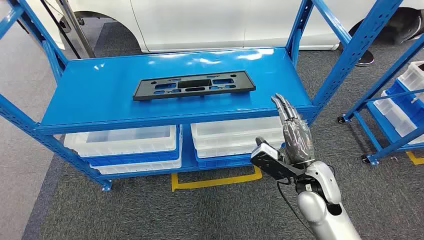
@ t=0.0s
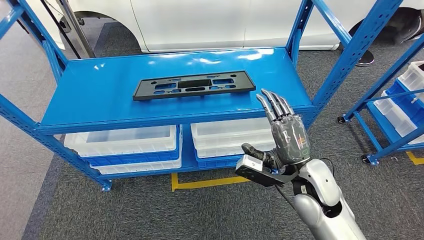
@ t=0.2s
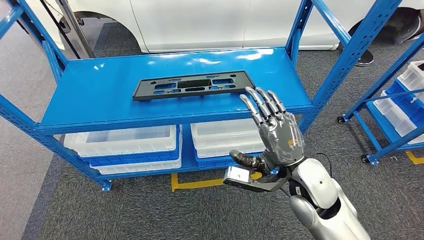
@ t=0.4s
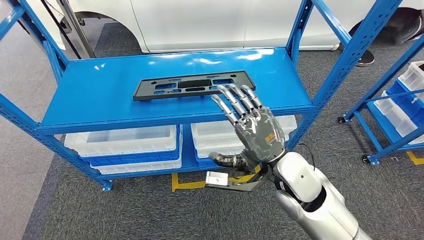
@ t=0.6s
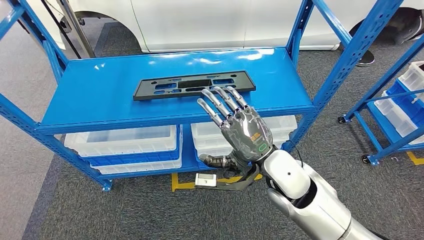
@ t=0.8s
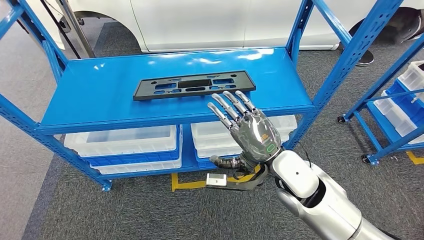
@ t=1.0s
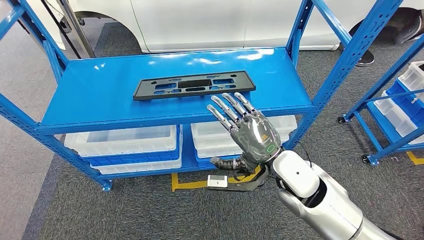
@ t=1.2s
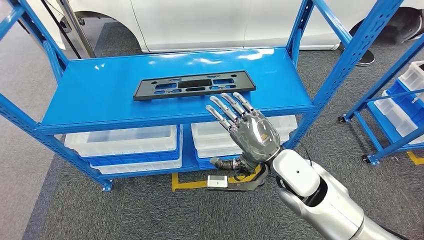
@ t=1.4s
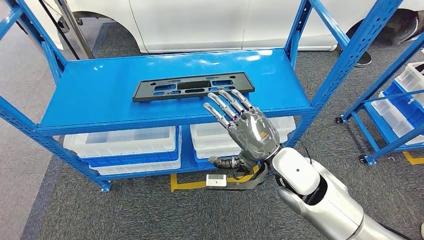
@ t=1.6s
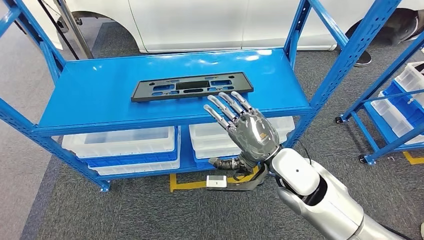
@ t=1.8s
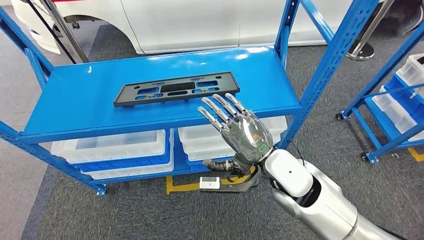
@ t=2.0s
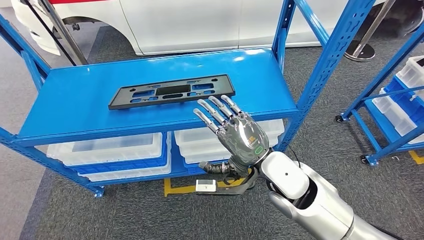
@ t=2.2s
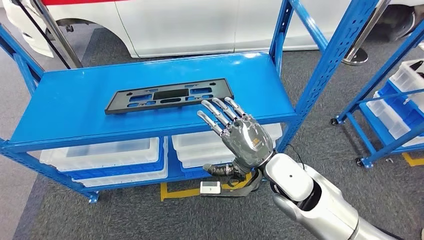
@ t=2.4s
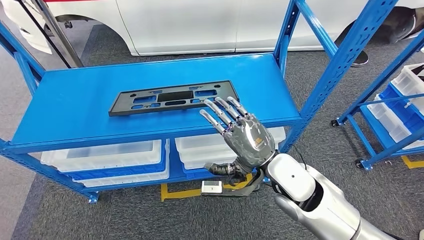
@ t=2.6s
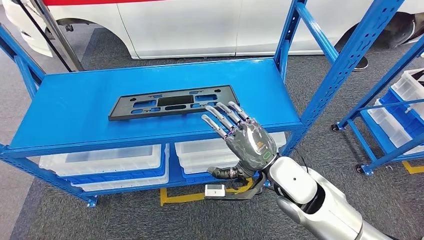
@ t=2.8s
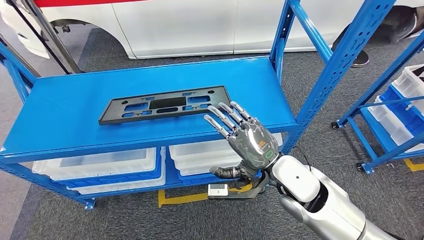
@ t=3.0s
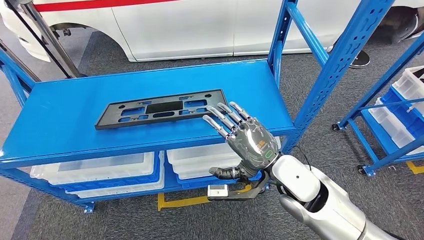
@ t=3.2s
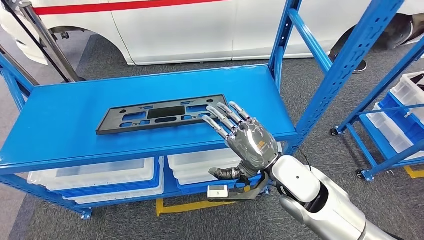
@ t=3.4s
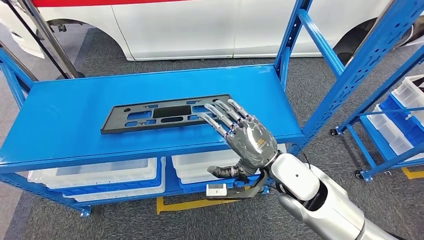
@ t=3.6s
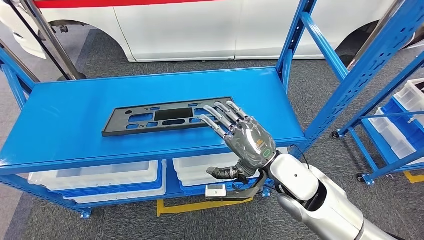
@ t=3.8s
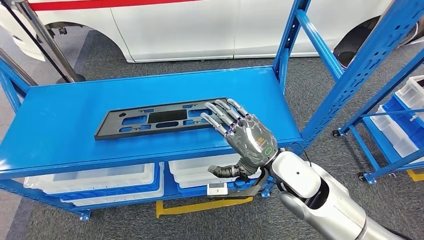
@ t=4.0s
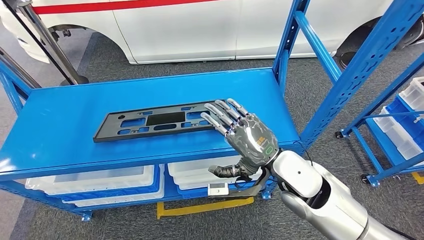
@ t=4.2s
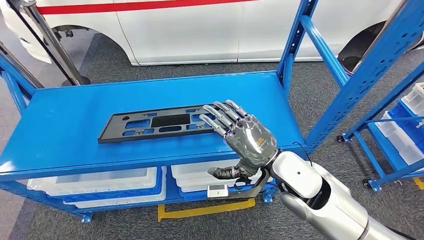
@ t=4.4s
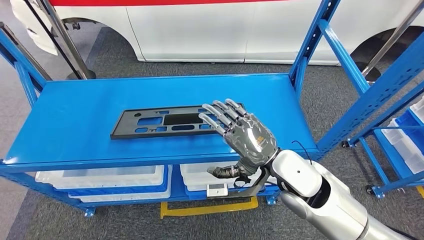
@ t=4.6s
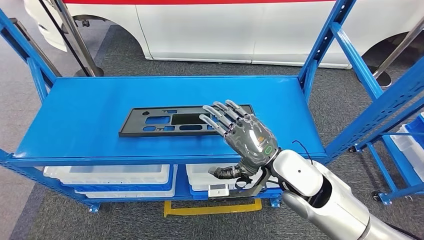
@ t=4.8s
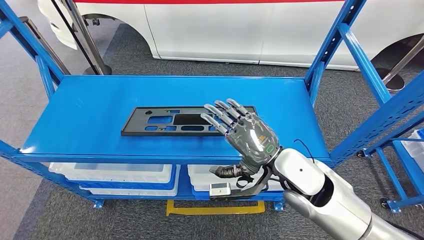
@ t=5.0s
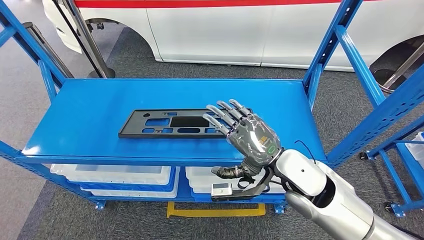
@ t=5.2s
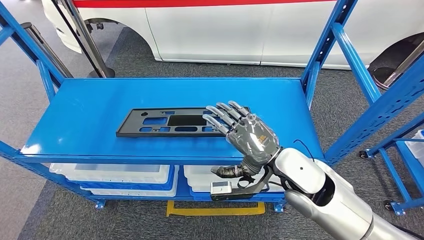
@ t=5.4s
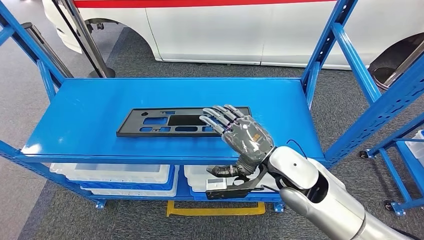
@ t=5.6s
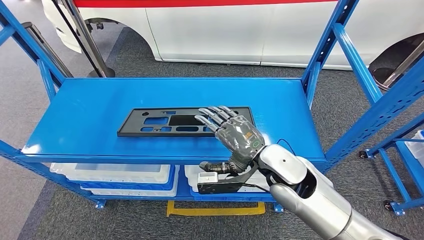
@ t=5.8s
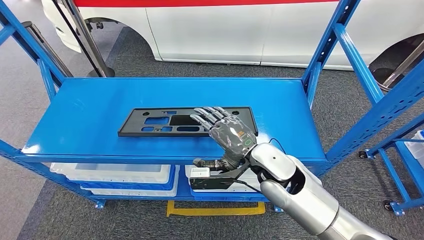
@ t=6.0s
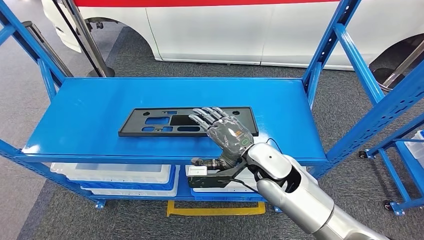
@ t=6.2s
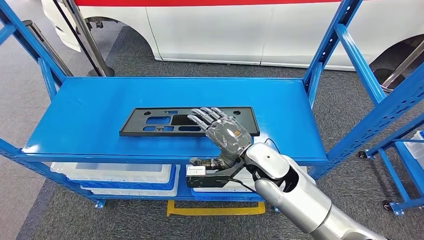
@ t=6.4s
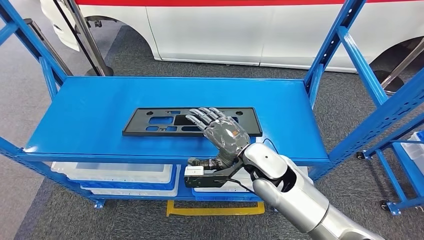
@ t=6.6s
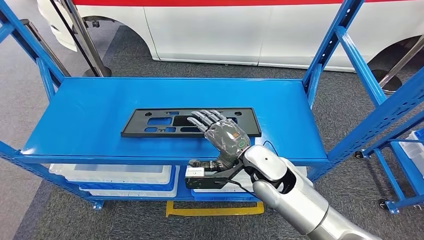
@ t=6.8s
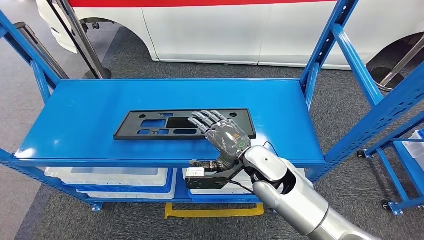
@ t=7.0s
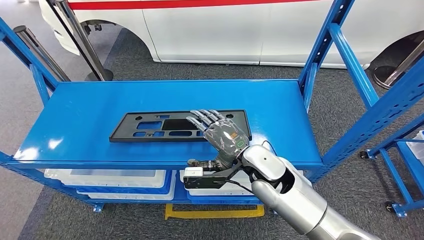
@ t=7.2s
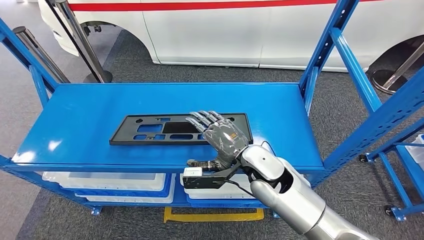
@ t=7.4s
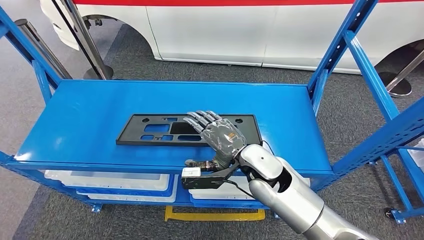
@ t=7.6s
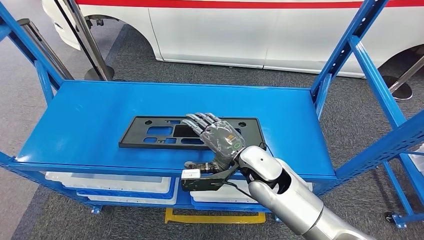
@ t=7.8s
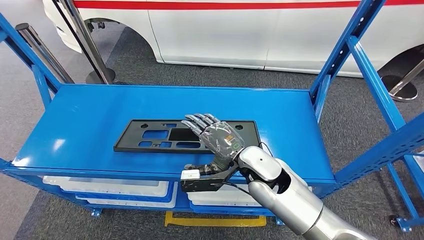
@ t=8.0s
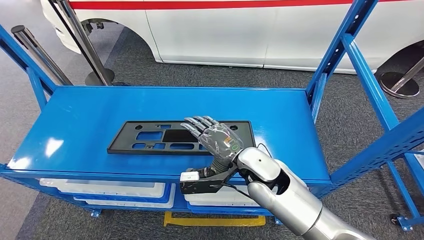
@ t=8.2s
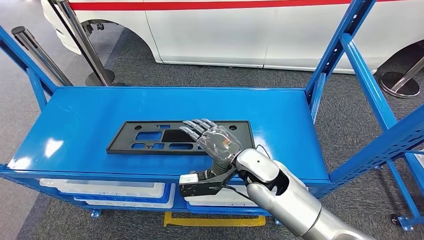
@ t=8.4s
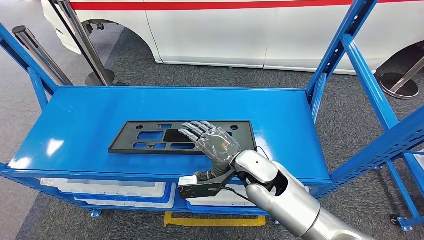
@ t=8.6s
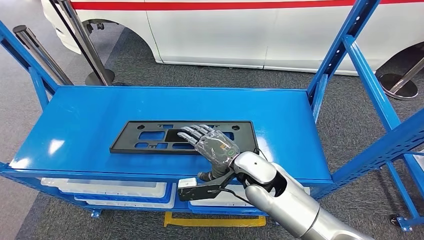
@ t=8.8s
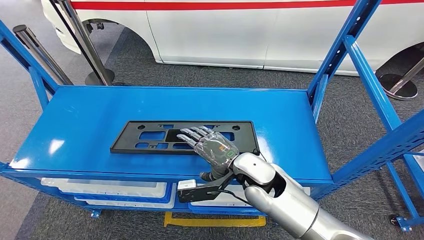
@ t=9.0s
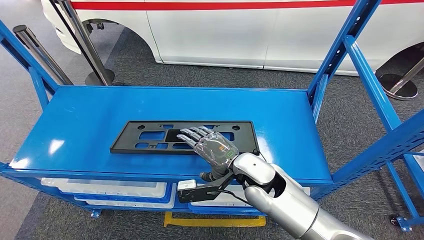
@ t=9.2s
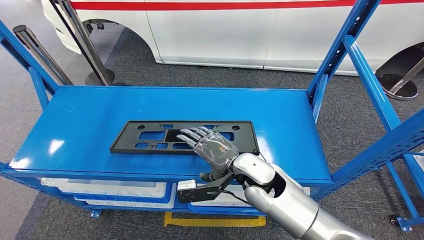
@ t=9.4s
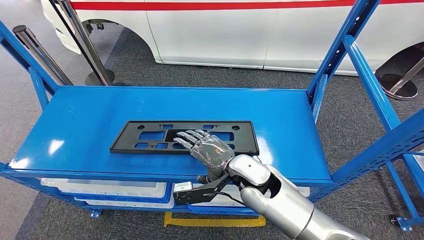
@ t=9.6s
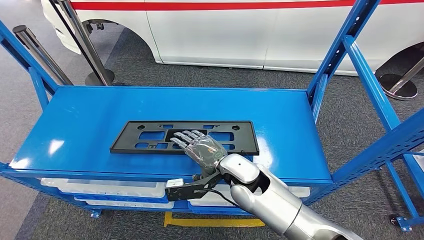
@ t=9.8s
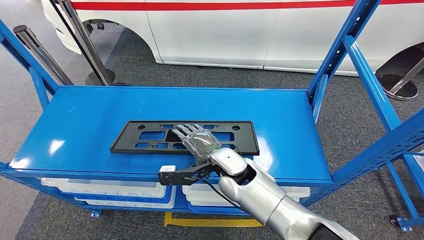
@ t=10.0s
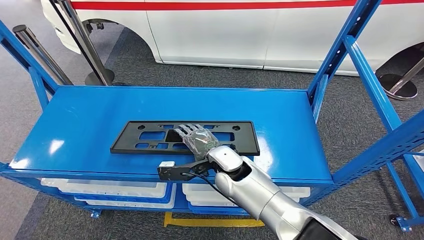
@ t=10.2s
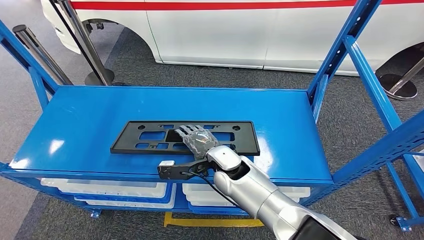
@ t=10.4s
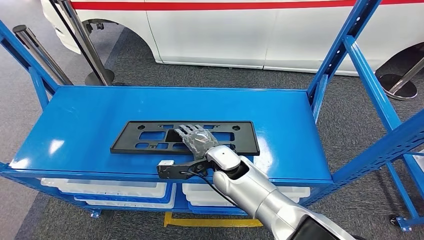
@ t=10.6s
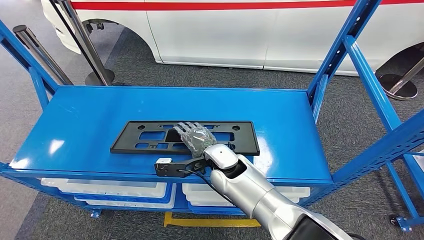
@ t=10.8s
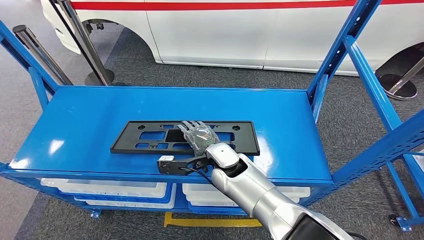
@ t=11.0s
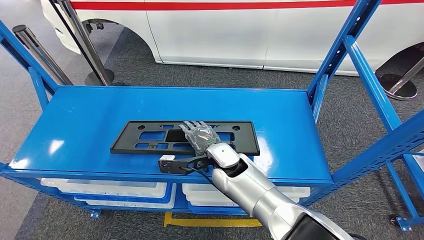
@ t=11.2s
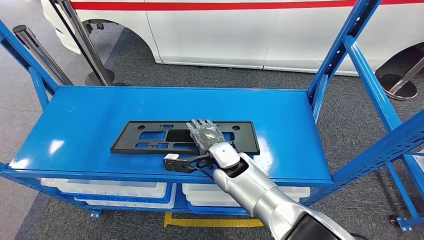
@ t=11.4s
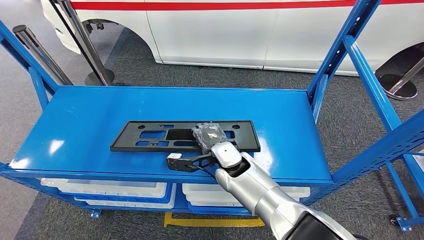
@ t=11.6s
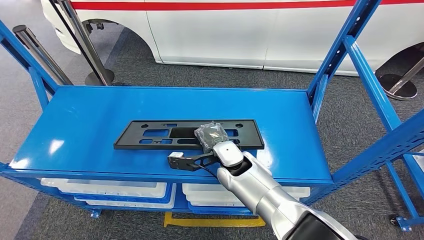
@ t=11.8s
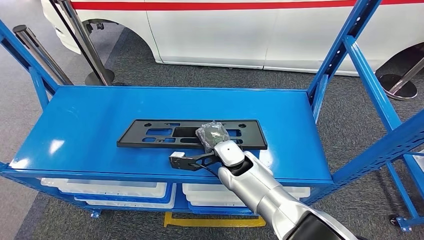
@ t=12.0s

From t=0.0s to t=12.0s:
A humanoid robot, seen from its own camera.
From t=9.0s to t=10.4s: The right hand is displaced to the left by approximately 5 cm.
From t=10.4s to t=12.0s: The hands move only a little.

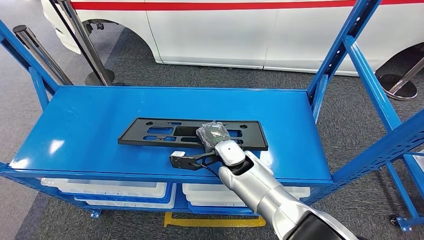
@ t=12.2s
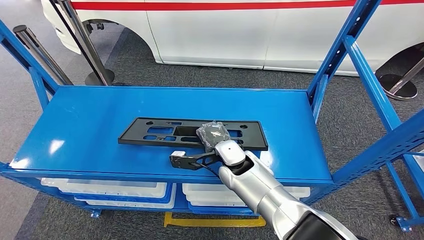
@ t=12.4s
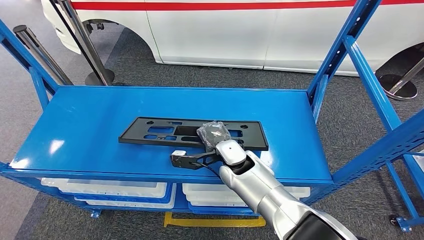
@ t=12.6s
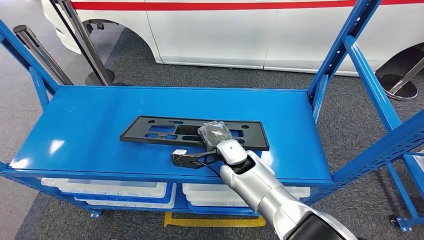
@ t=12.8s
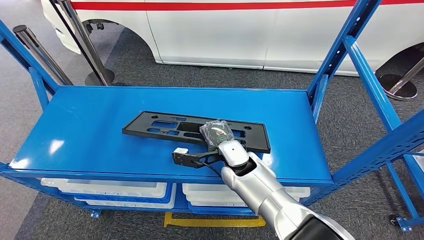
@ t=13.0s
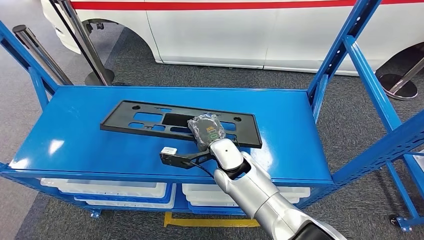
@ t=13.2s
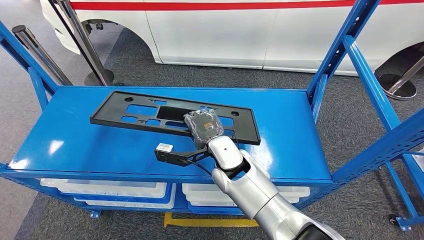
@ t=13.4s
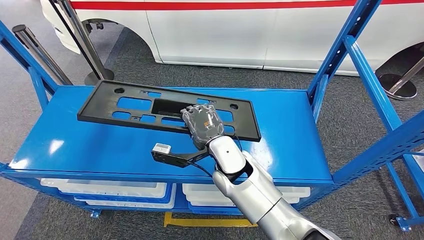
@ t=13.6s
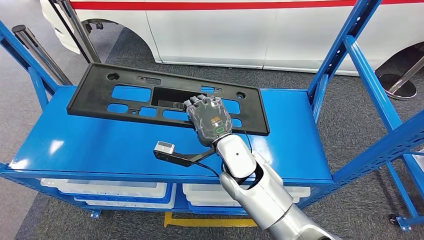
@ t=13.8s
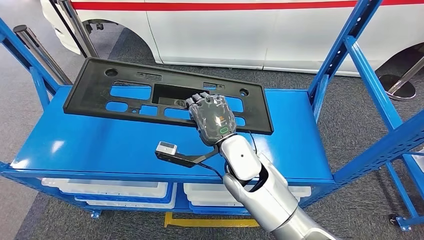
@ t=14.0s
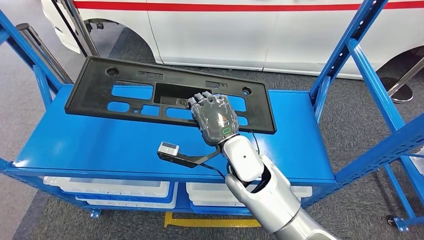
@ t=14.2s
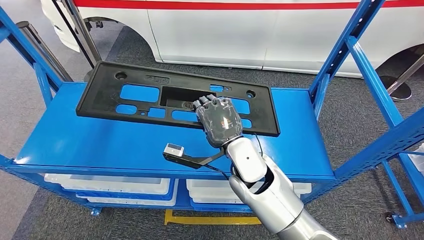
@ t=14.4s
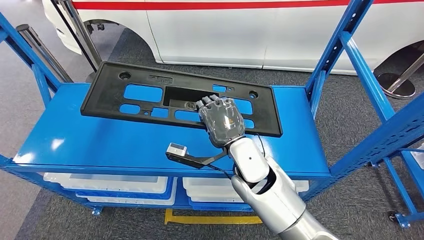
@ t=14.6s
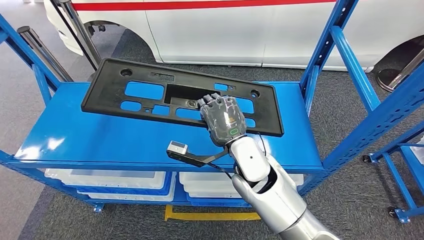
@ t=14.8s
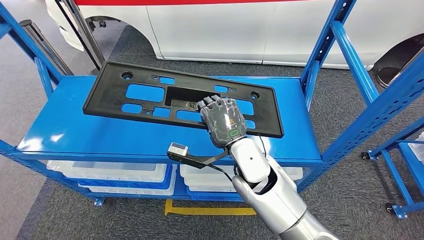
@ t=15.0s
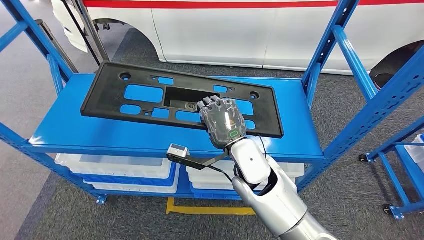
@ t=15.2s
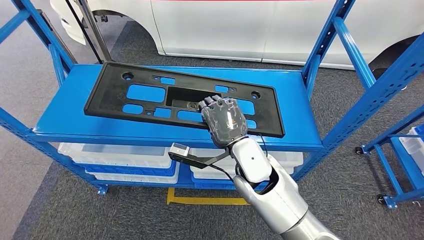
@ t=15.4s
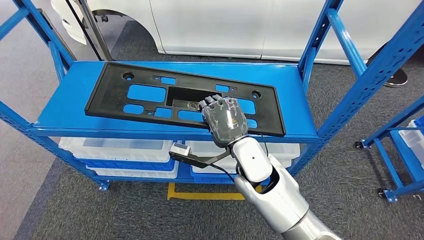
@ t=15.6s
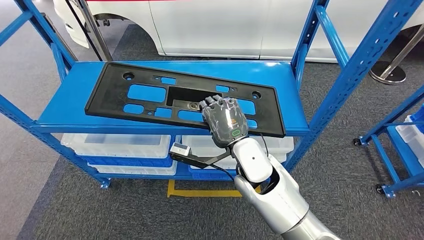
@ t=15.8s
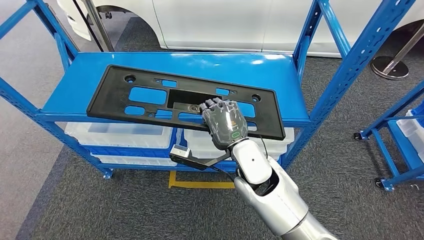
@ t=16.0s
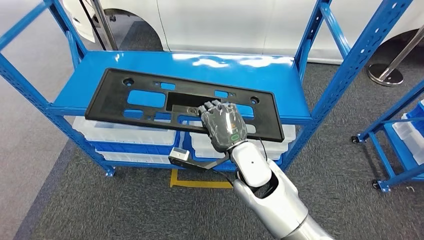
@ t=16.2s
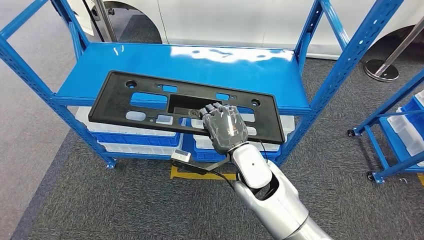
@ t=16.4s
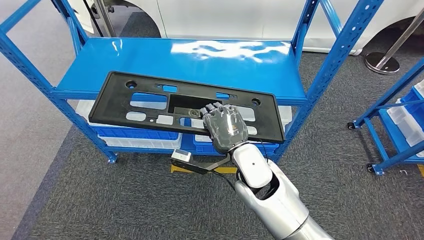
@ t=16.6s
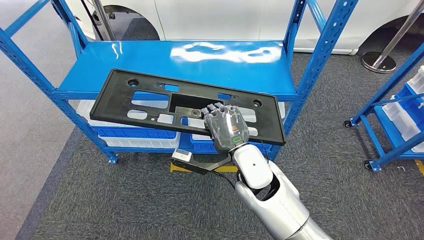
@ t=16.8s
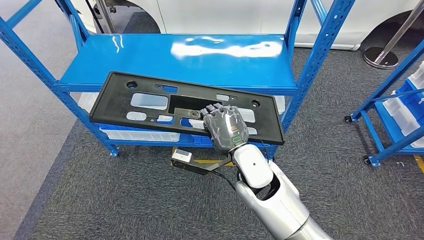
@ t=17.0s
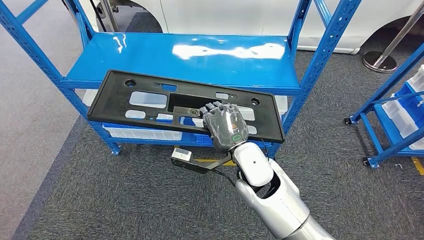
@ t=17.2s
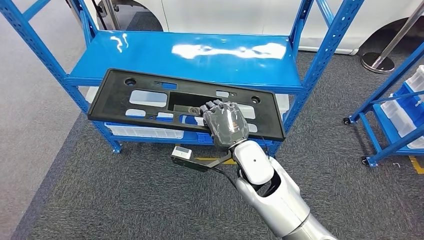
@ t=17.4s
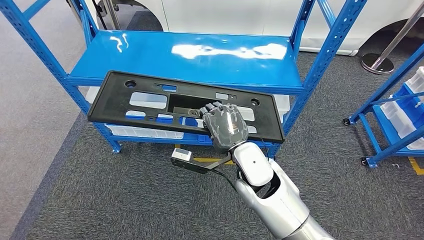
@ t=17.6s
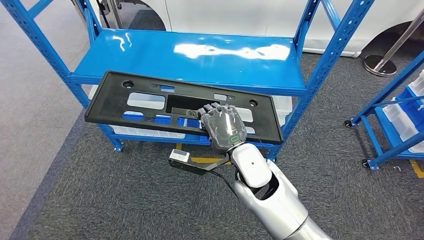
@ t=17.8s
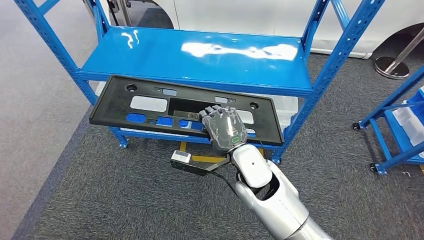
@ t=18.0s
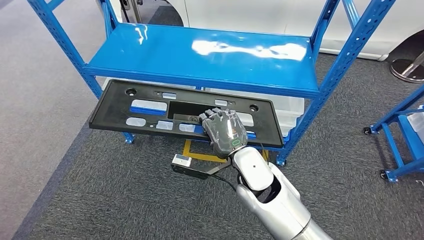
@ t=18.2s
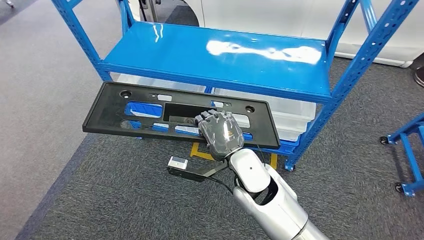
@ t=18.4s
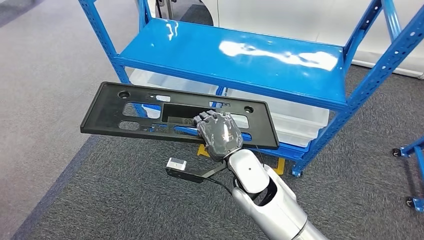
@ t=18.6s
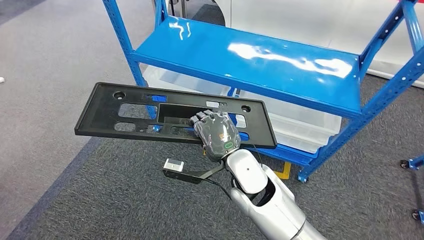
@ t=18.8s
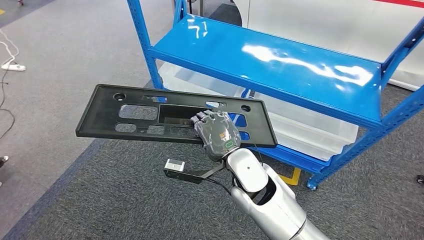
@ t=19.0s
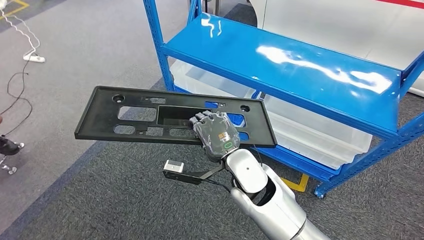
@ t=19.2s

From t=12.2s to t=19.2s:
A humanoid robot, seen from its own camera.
Step, from t=12.2s to t=14.6s: Pick up the large material from the shelf.
From t=12.2s to t=13.6s: The right hand ends up some 5 cm from where it was.
